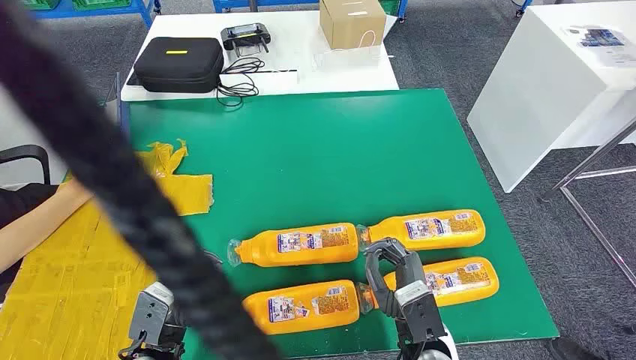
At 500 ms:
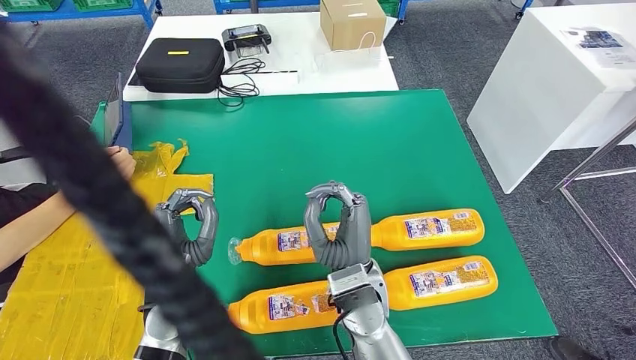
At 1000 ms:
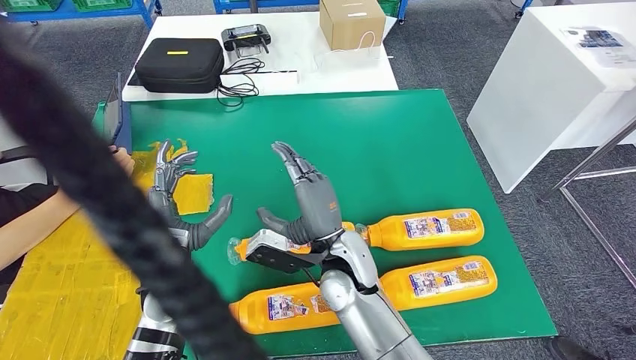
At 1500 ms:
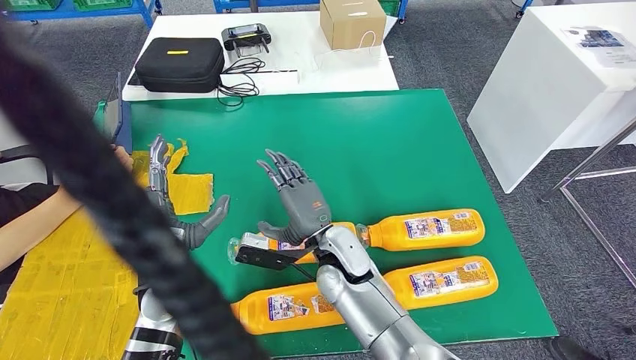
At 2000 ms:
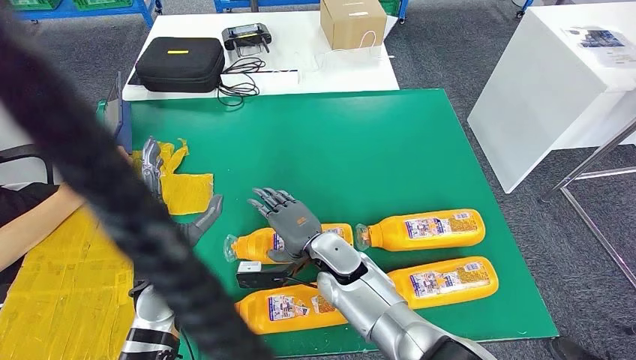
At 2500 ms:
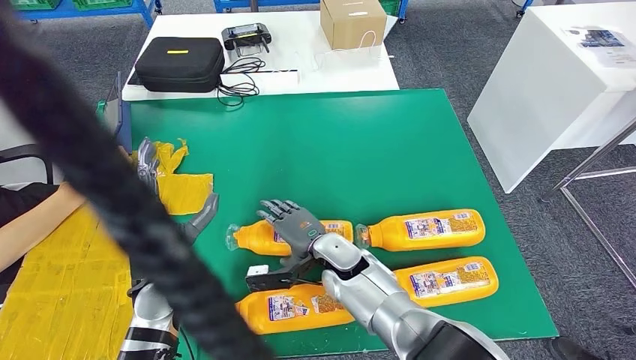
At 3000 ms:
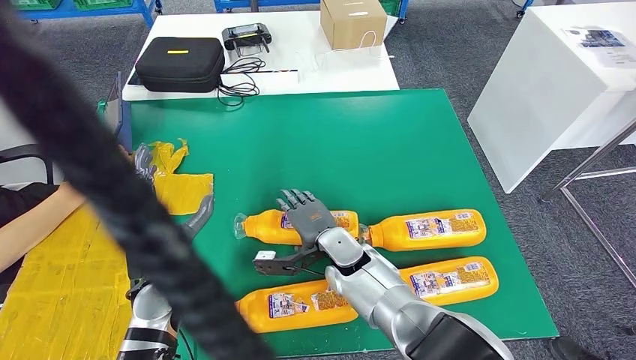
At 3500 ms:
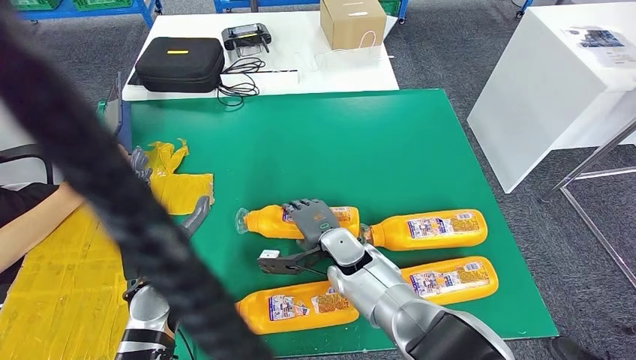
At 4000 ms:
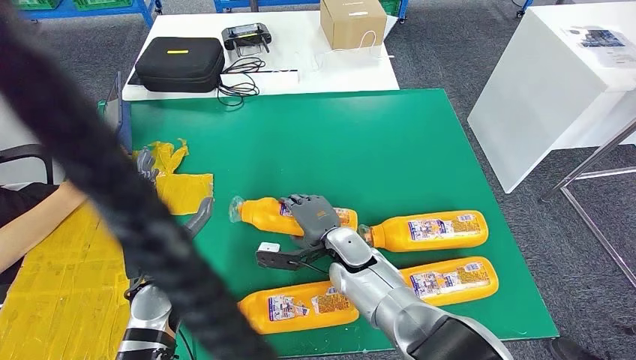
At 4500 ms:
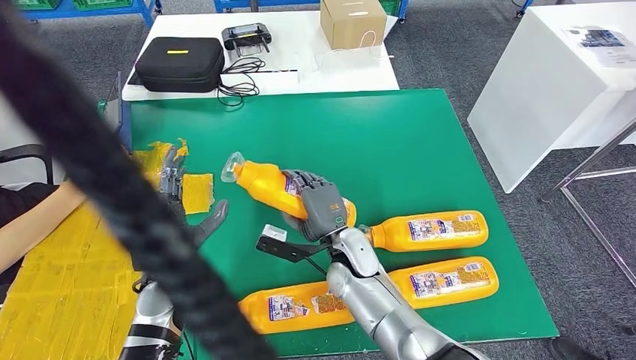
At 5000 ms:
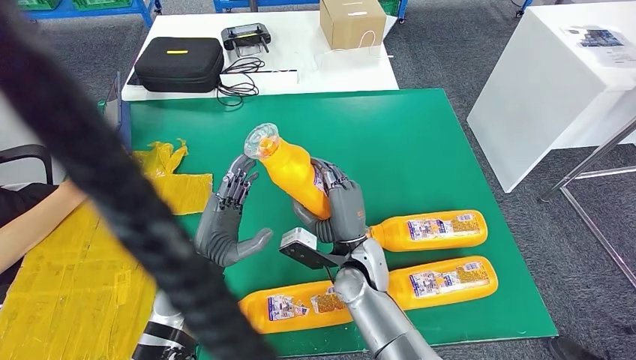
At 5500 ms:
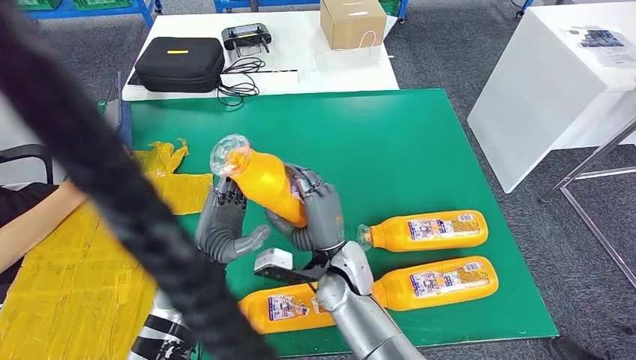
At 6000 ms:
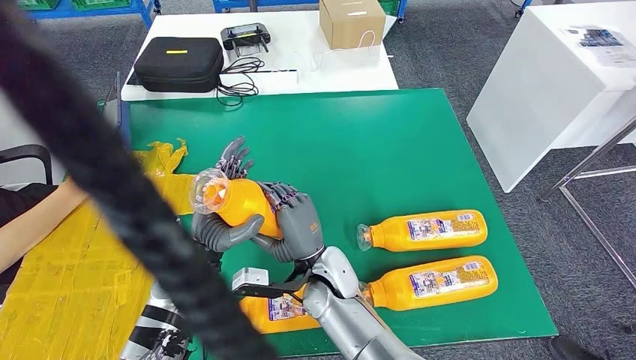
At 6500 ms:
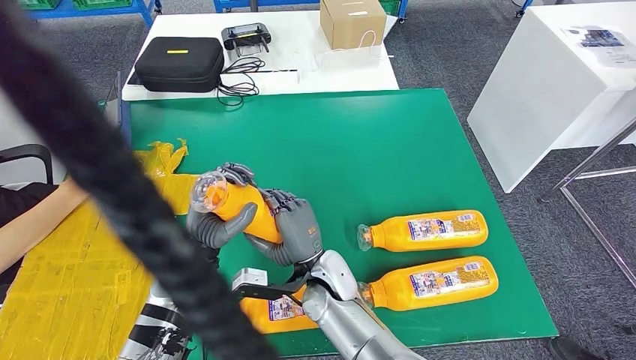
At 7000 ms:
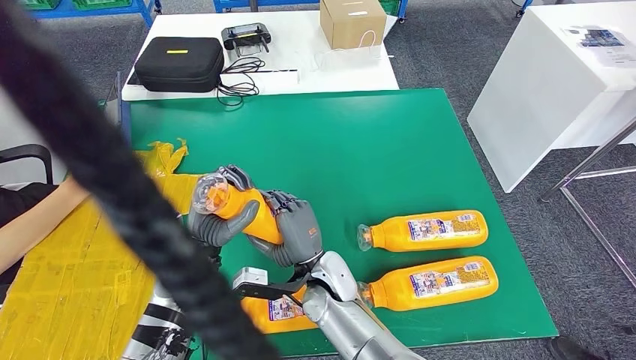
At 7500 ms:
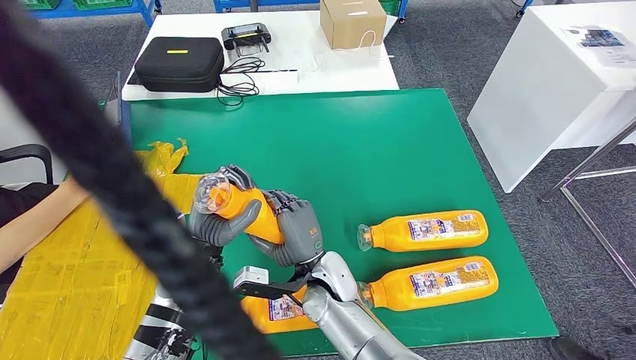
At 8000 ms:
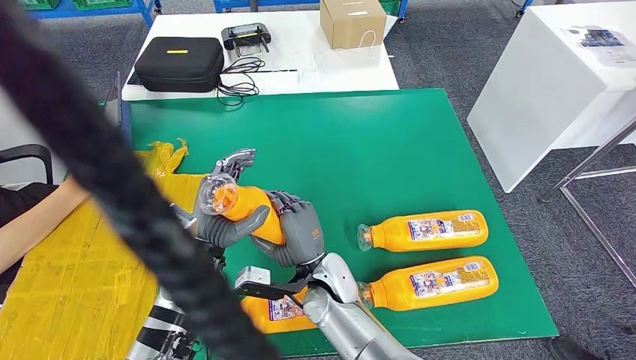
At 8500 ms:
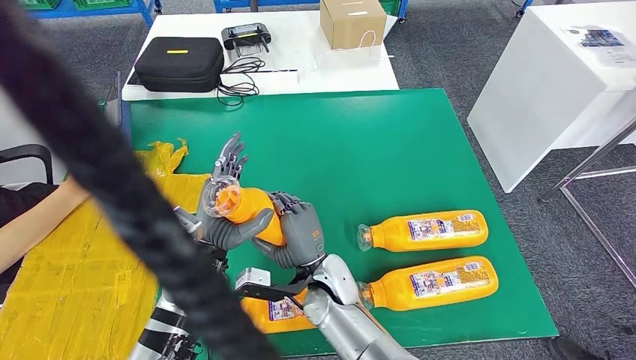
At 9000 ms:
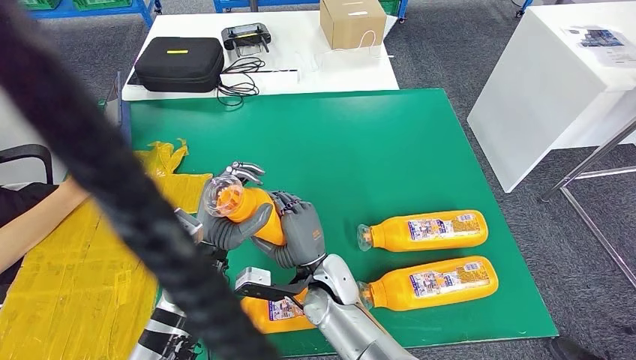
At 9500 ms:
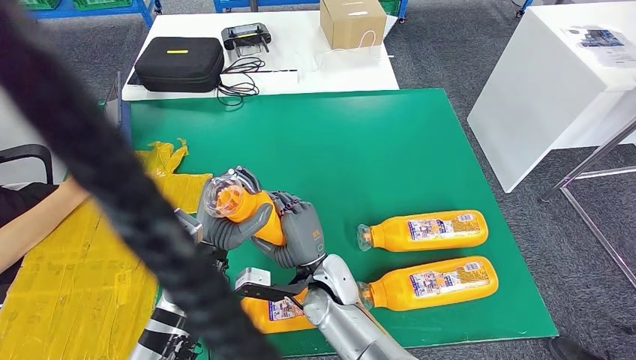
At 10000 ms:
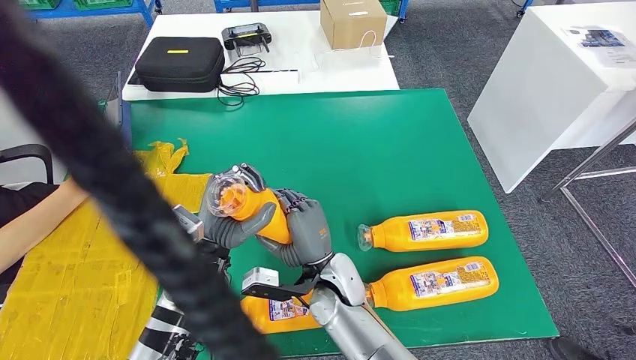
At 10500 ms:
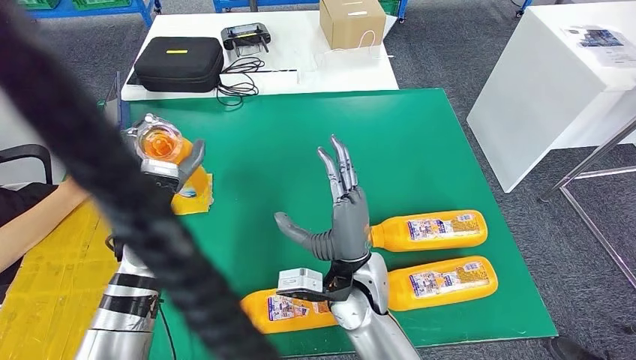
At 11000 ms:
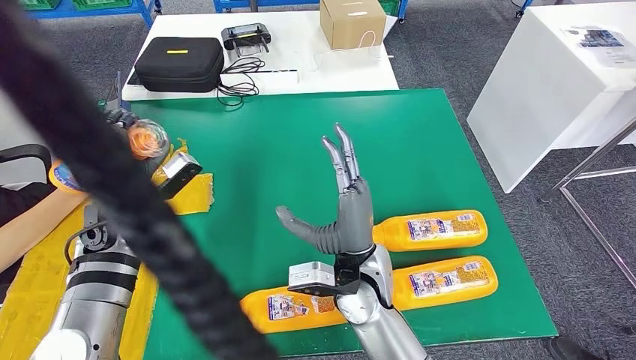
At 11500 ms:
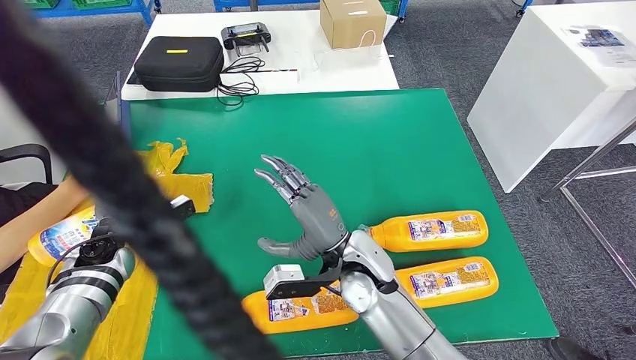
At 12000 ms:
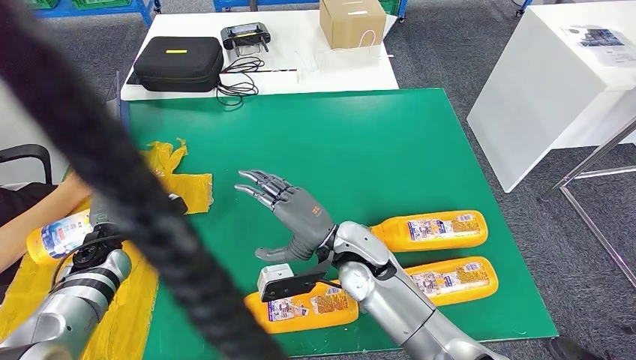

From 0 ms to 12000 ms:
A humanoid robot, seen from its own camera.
Step, from 0 ms to 5000 ms: Take the bottle from the table.
Step, from 5500 ms to 11500 ms: Flip the bottle to face forward.
From 4000 ms to 6000 ms: The left hand moves to the right, roughly 5 cm. Meanwhile the right hand is displaced backward by some 5 cm.
From 6000 ms to 10000 ms: The hands move only a little.
From 10000 ms to 12000 ms: The left hand is displaced to the left by approximately 20 cm. The right hand moves upward, approximately 5 cm.

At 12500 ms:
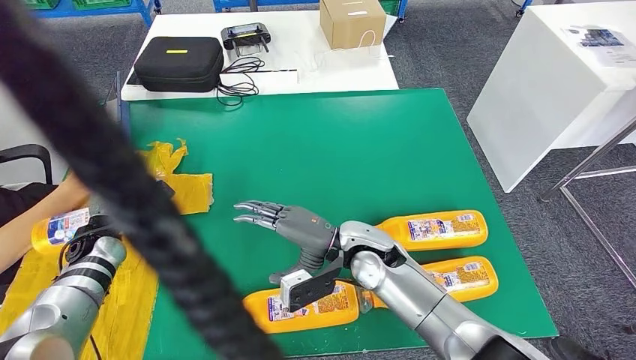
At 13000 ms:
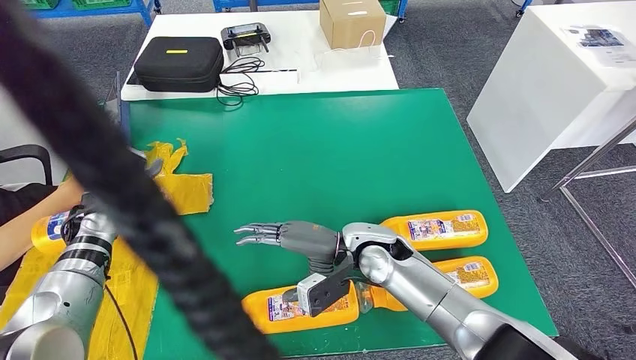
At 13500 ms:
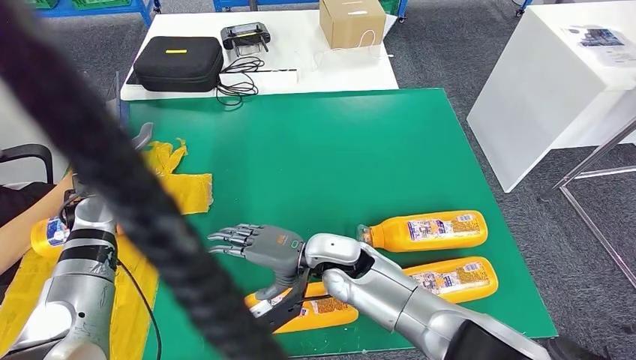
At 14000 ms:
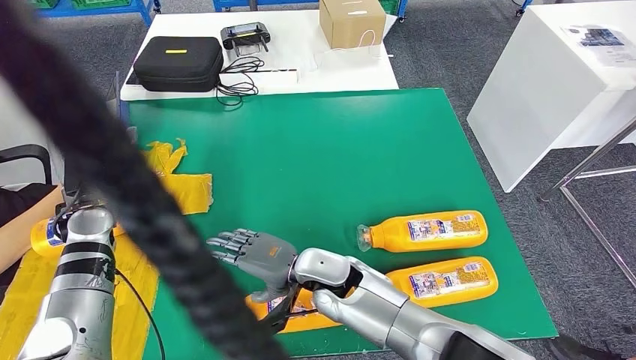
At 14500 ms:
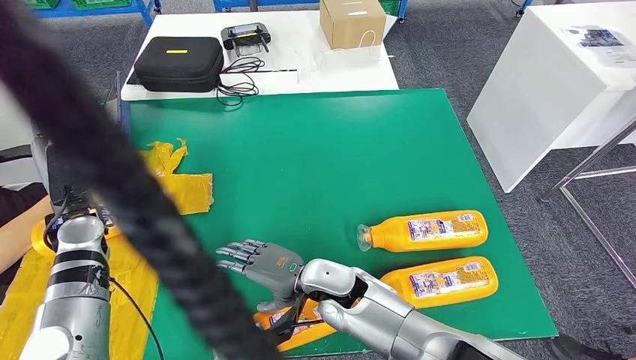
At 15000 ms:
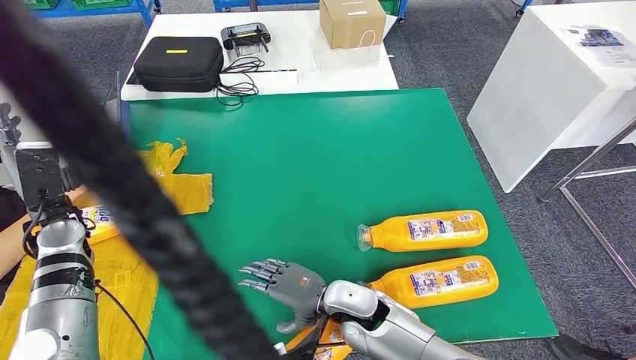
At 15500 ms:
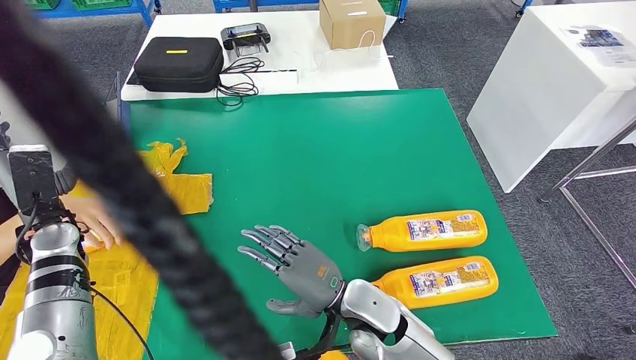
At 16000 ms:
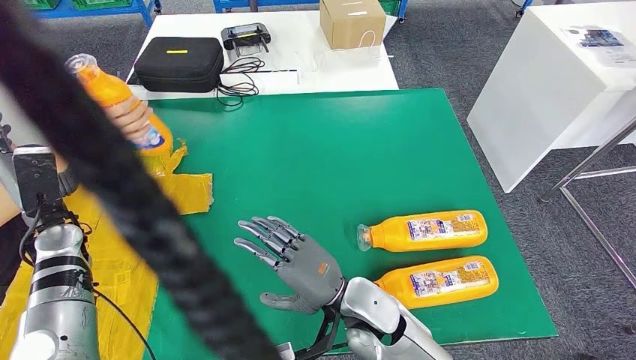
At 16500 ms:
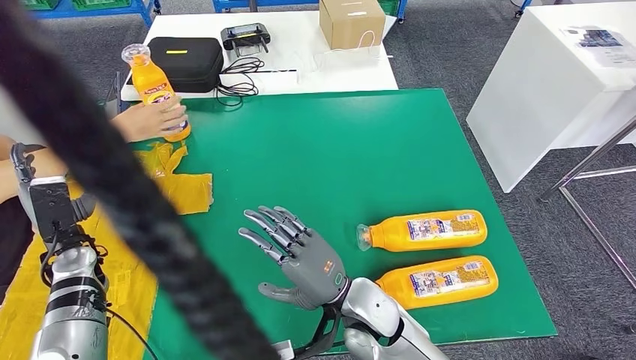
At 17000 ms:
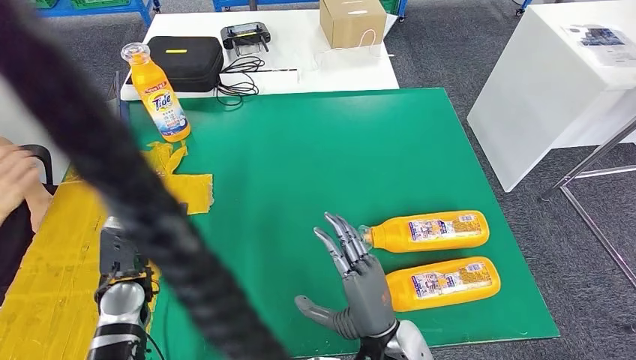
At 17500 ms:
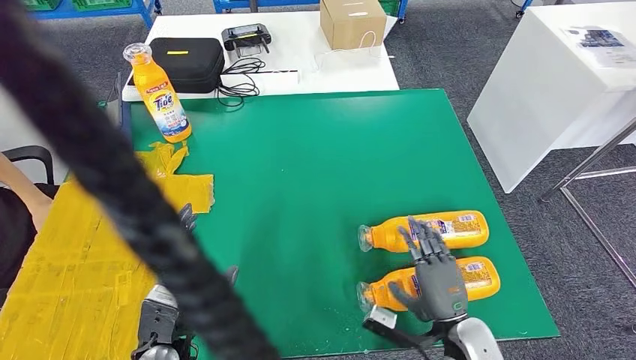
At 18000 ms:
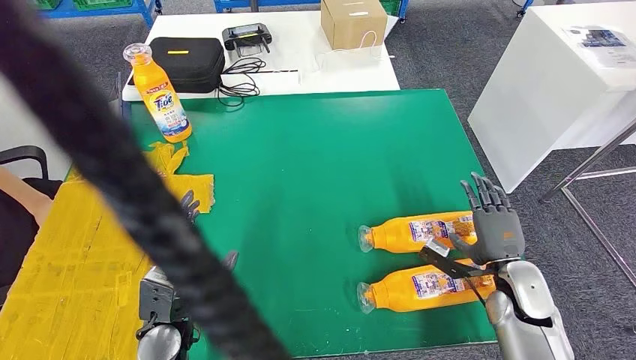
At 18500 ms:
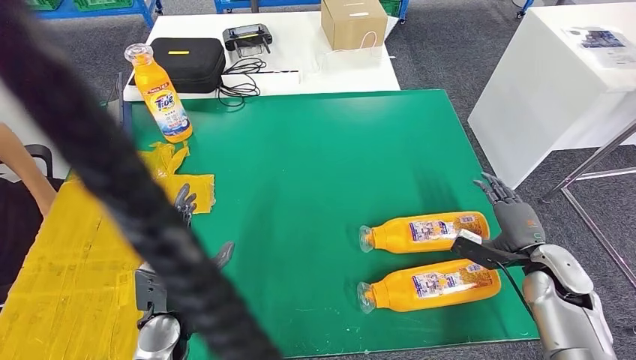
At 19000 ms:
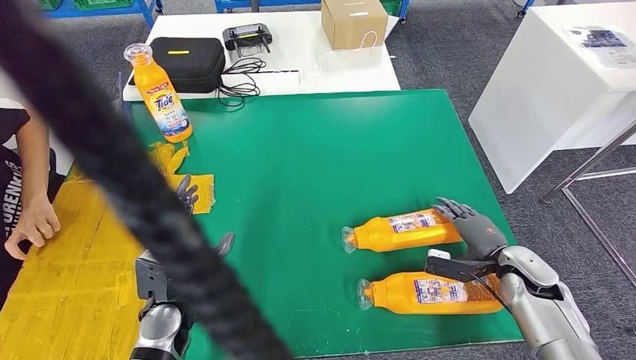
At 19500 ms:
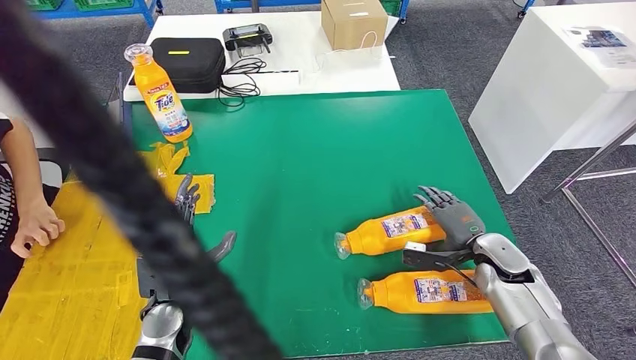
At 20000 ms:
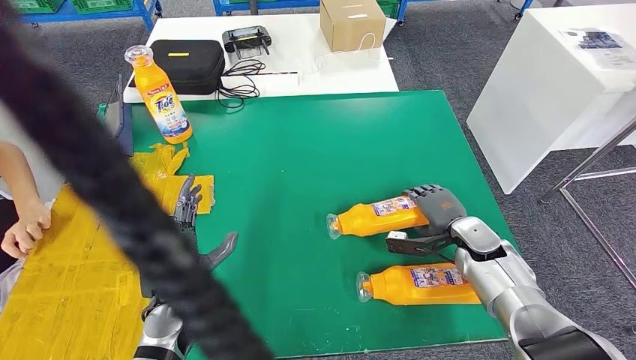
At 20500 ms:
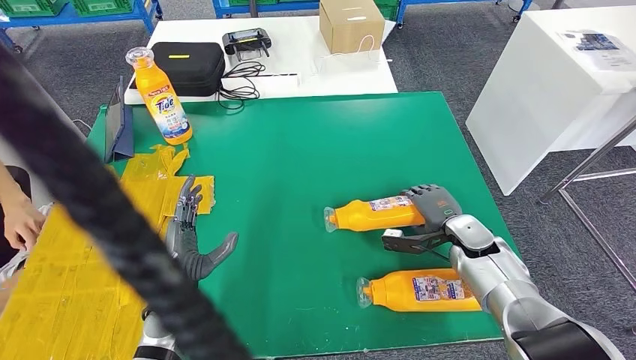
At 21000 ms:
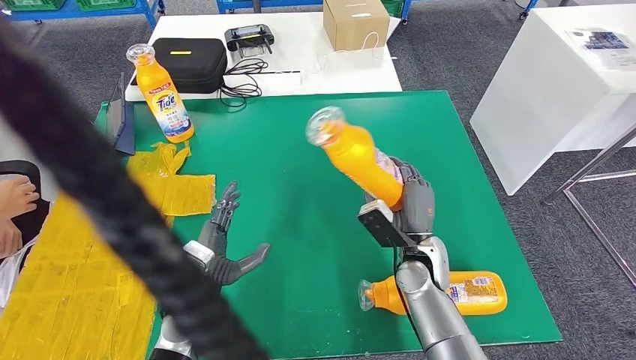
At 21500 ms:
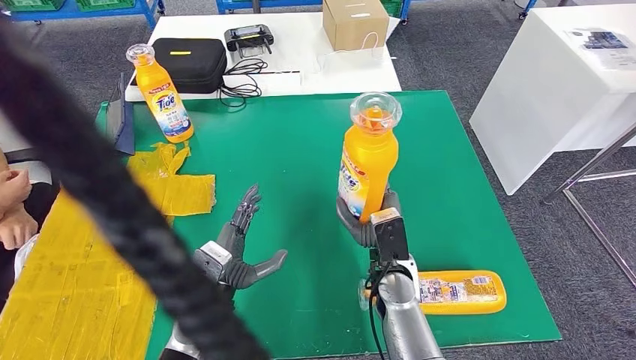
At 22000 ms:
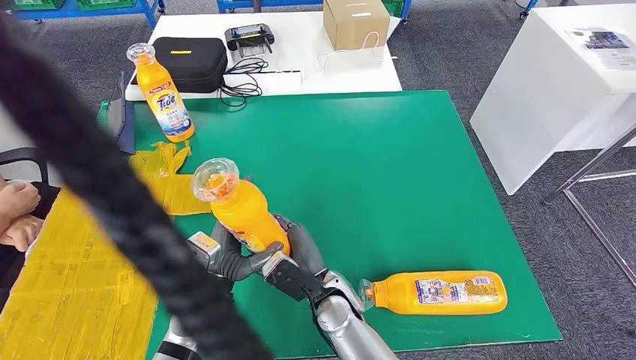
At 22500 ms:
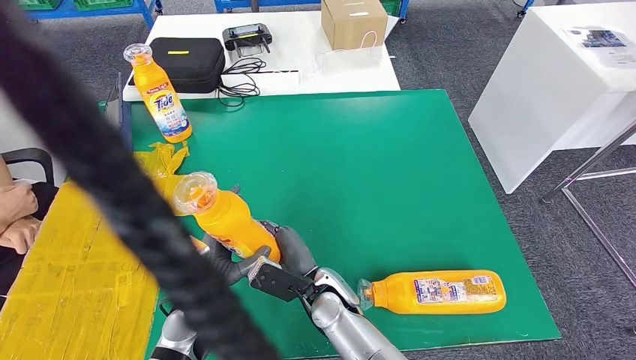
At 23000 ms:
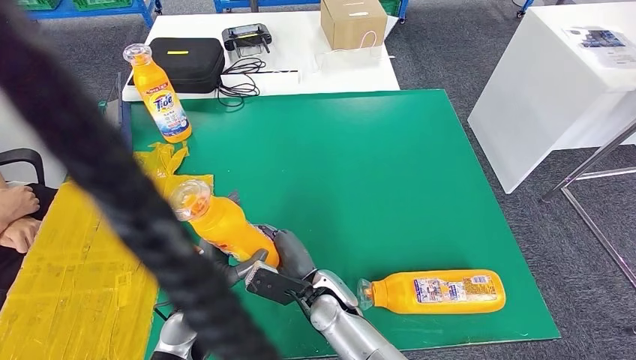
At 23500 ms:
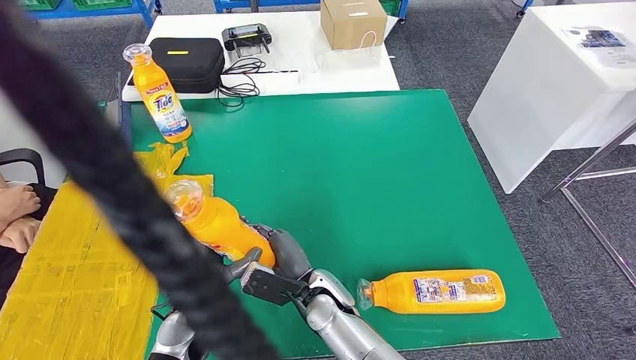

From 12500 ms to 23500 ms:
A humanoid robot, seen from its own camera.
Step, from 12500 ms to 23000 ms: Pick up the bottle from the table.
From 12500 ms to 14500 ms: The left hand moves upward, approximately 10 cm. Meanwhile the right hand heads to the left, covering approximately 5 cm.
From 14500 ms to 16000 ms: The right hand travels backward by roughly 5 cm.
